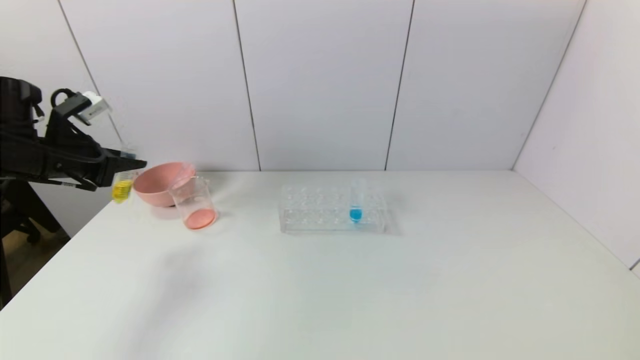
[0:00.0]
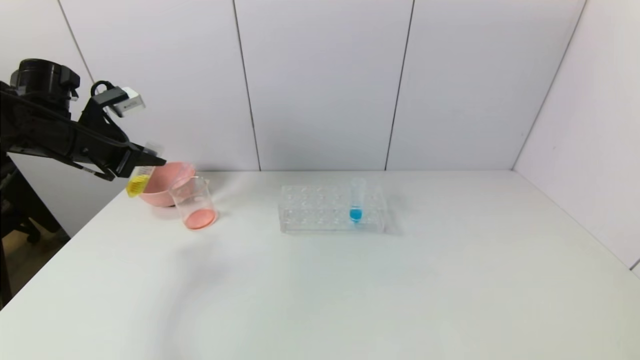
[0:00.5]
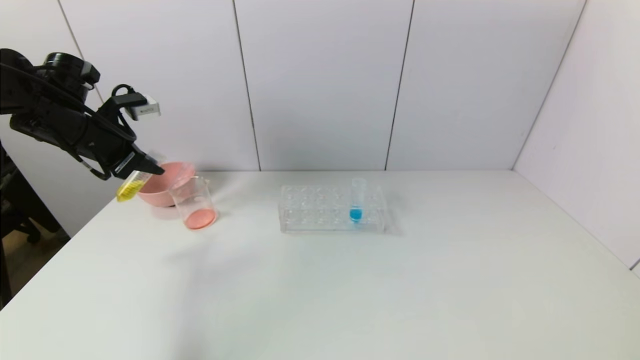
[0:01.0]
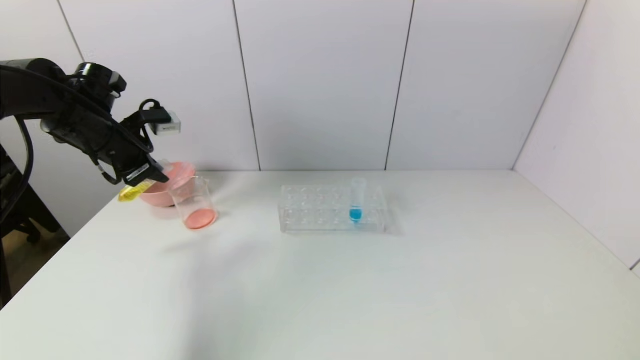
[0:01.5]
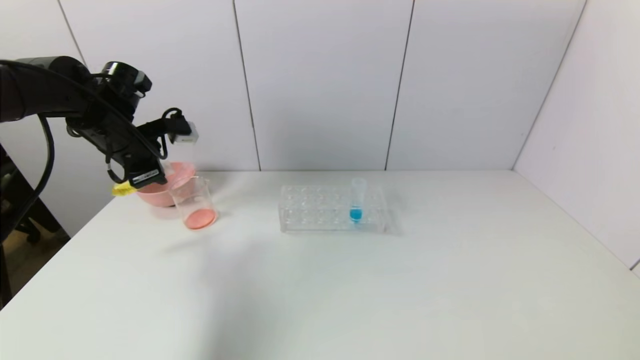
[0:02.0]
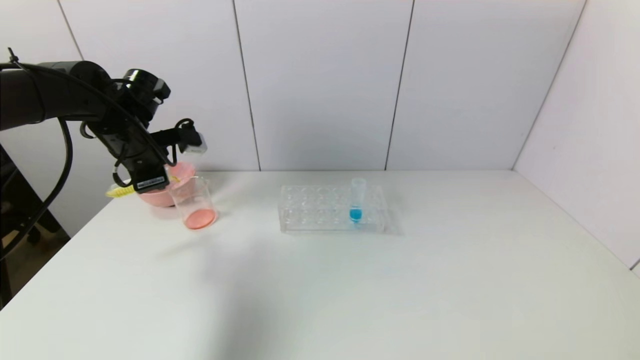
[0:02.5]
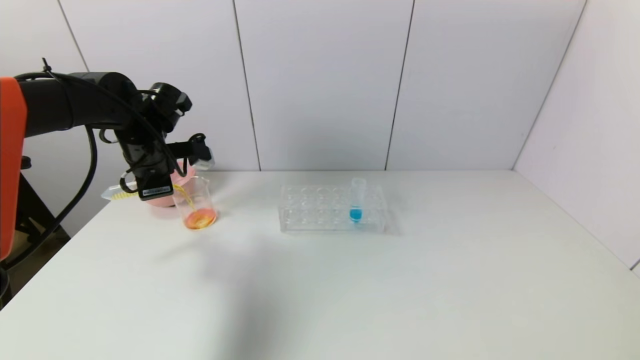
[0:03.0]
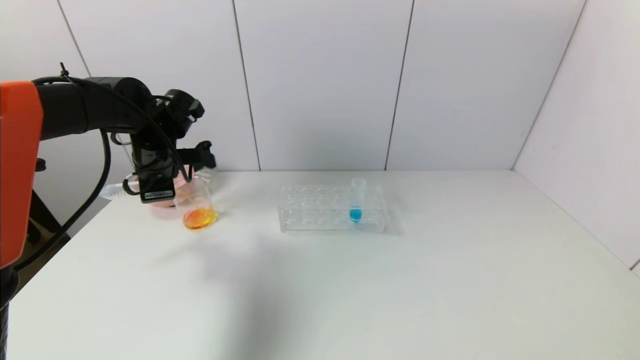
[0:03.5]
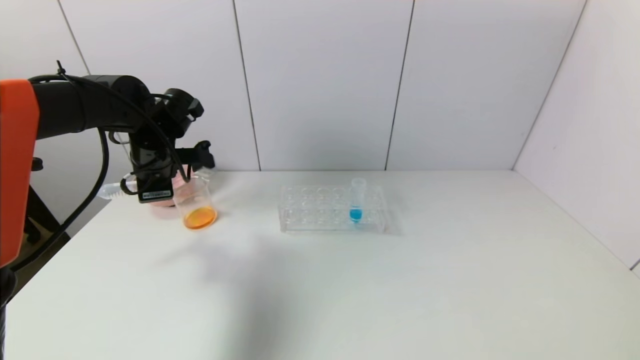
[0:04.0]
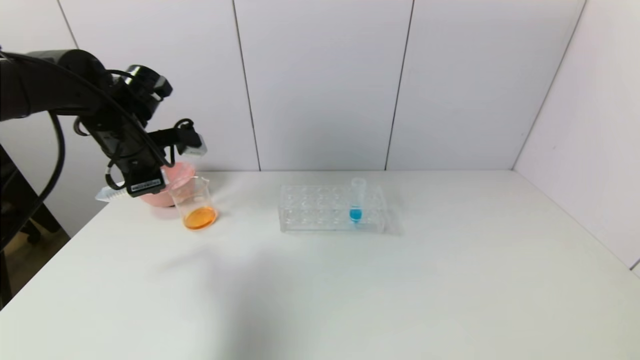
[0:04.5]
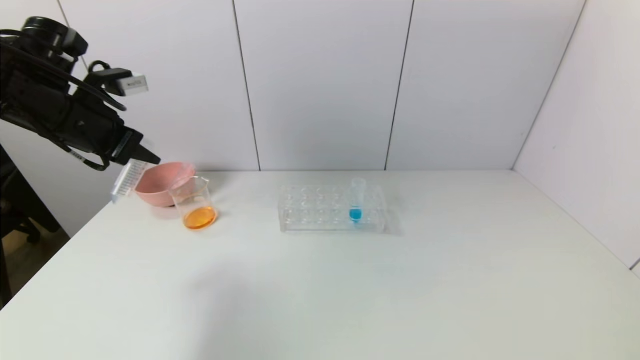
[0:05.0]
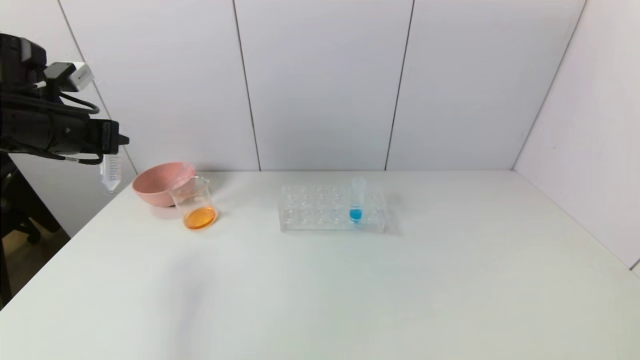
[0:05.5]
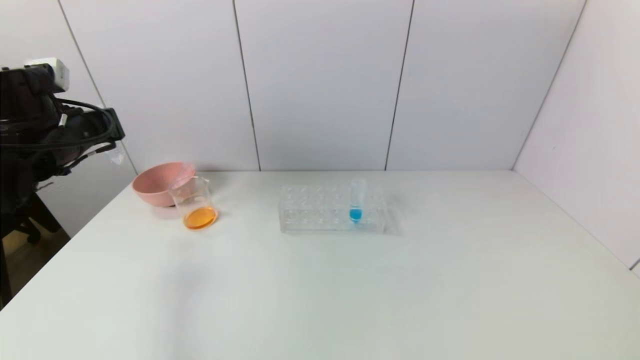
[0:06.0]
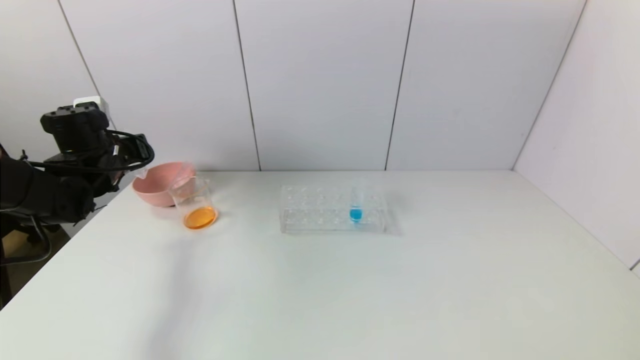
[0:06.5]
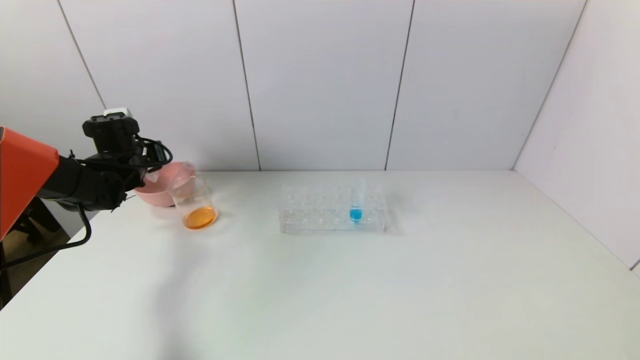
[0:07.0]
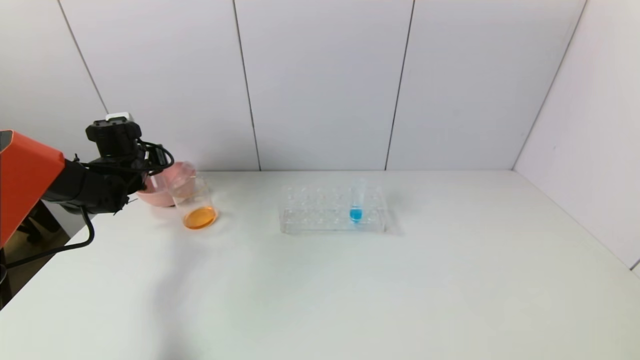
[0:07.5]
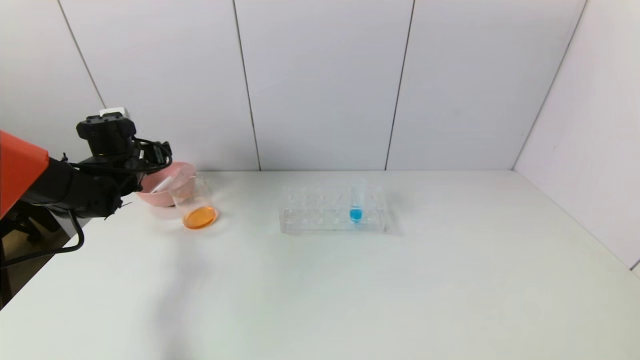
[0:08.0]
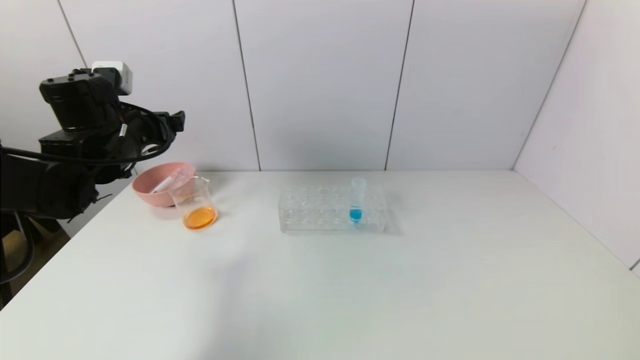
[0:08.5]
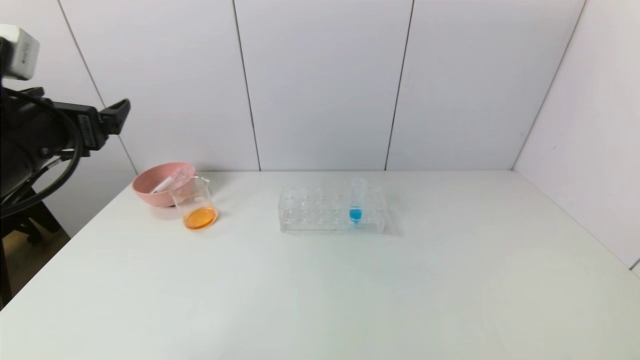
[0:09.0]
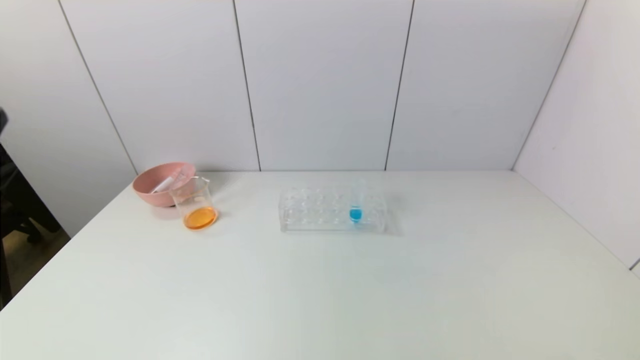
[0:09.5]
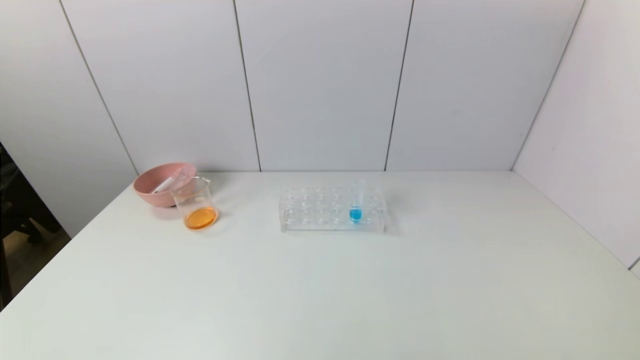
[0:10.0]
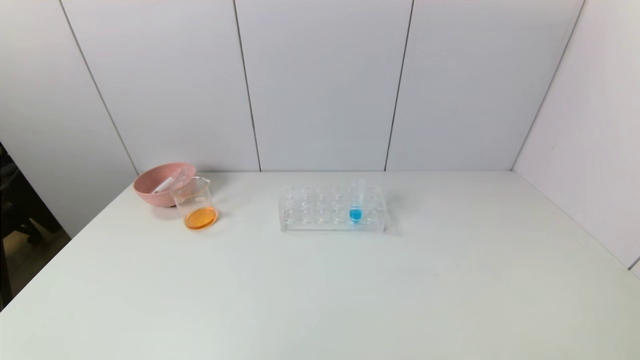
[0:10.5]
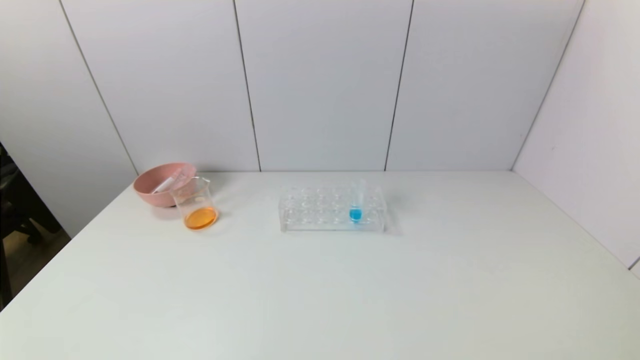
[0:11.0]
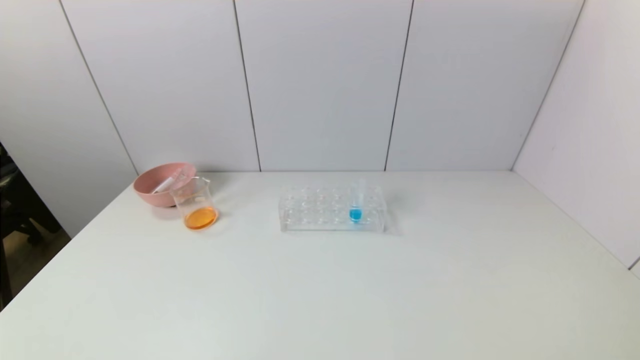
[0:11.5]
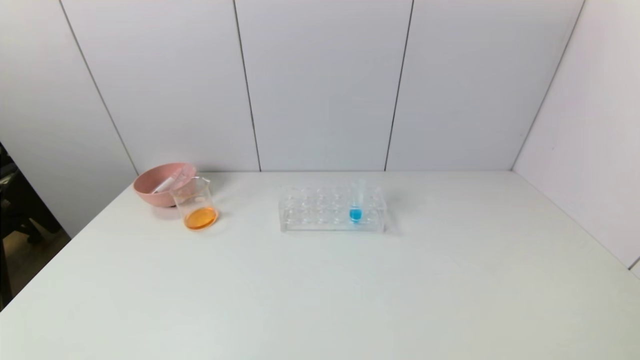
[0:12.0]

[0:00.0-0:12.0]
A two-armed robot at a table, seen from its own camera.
Task of the whole recording: pick up the test tube with yellow pigment and the test tube with red pigment by grippers and pour them into the beaker.
Step, 0:00.0 to 0:03.5: Pour the yellow reagent into the graduated cylinder with the left gripper.
Step, 0:04.0 to 0:07.5: Place the test tube into the pink bowl with the left gripper.
0:00.0 to 0:02.0: The left gripper moves to the right and forward, roughly 10 cm.
0:02.0 to 0:04.0: The left gripper shifts by some 5 cm.
0:04.0 to 0:06.0: The left gripper moves to the left and backward, approximately 10 cm.
0:06.0 to 0:08.0: The left gripper travels forward and downward by about 10 cm, and opens up.
0:08.0 to 0:10.0: The left gripper moves backward, some 50 cm.
